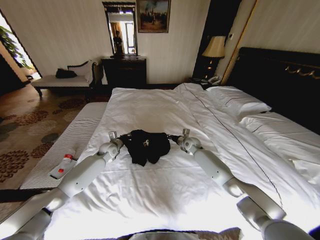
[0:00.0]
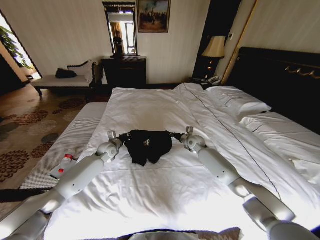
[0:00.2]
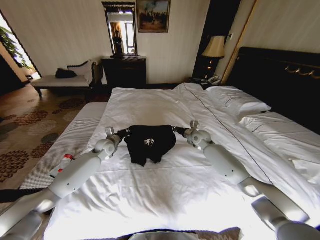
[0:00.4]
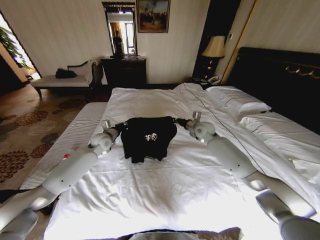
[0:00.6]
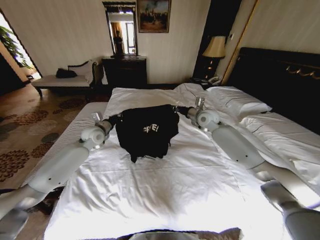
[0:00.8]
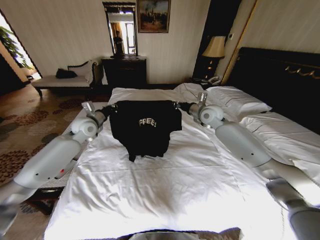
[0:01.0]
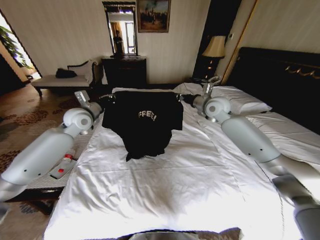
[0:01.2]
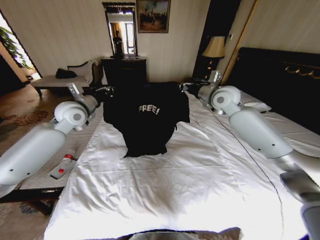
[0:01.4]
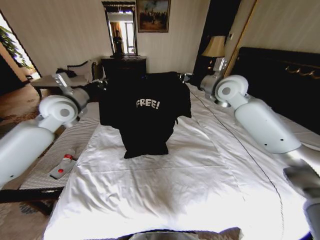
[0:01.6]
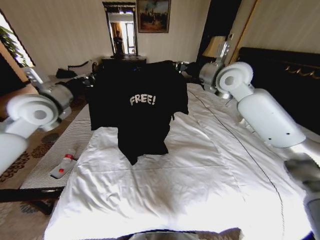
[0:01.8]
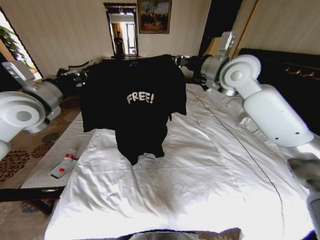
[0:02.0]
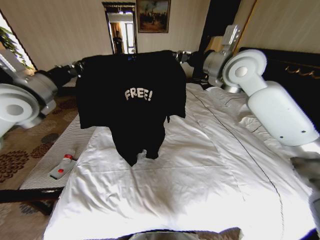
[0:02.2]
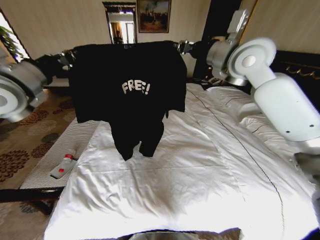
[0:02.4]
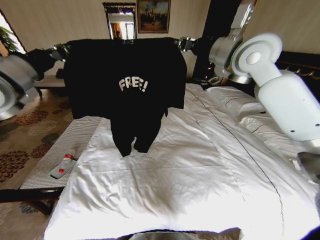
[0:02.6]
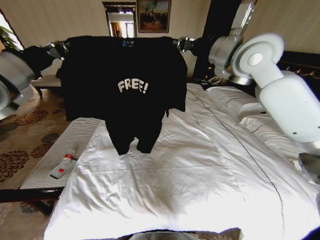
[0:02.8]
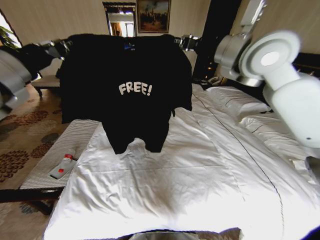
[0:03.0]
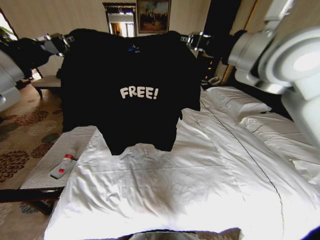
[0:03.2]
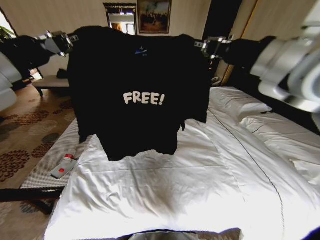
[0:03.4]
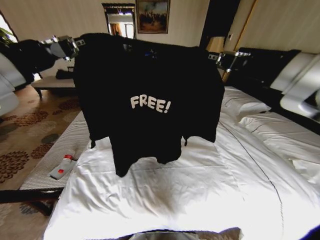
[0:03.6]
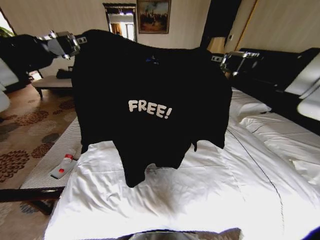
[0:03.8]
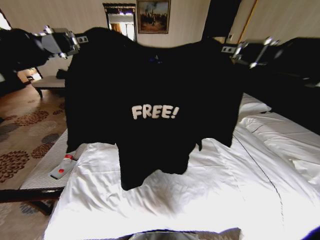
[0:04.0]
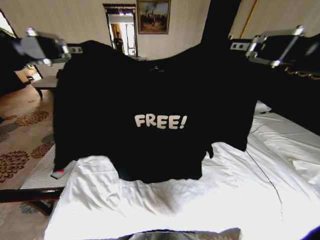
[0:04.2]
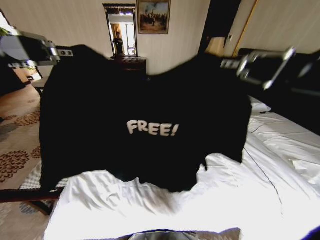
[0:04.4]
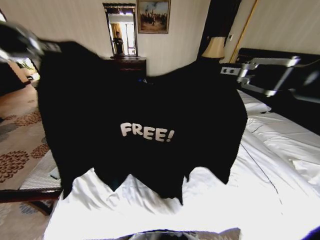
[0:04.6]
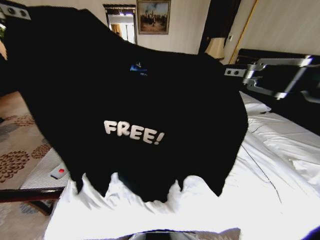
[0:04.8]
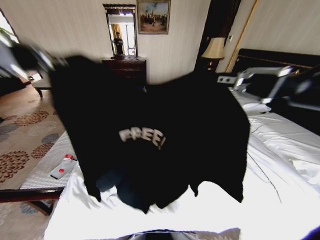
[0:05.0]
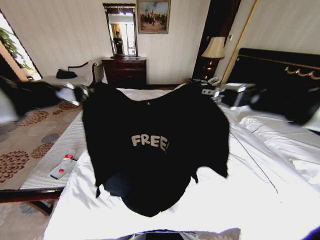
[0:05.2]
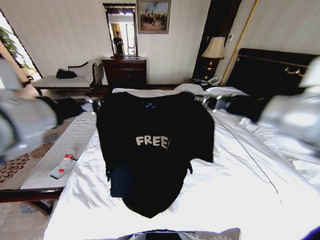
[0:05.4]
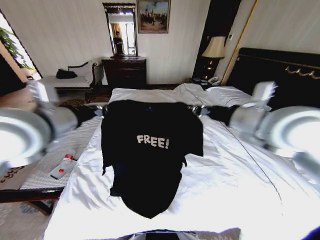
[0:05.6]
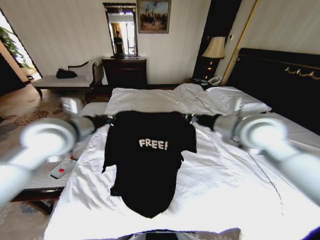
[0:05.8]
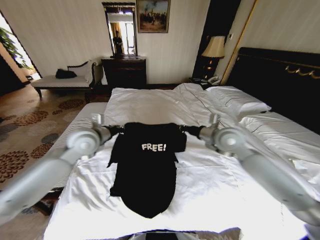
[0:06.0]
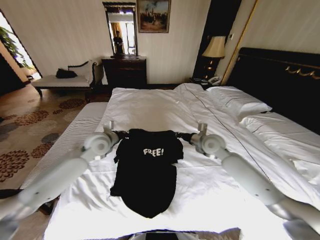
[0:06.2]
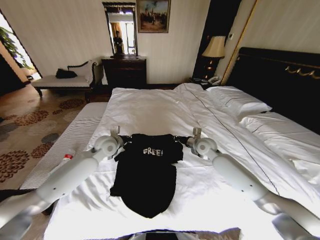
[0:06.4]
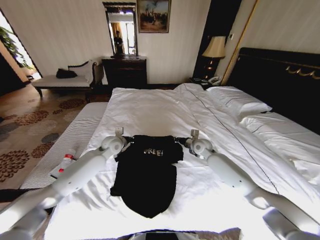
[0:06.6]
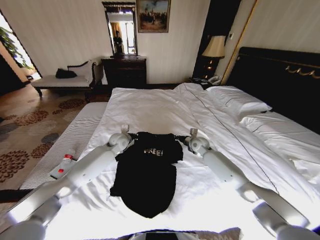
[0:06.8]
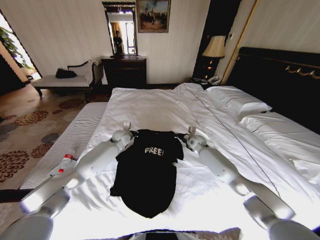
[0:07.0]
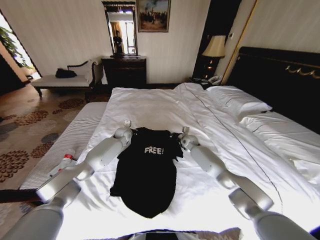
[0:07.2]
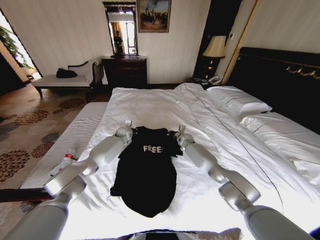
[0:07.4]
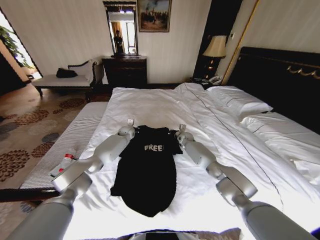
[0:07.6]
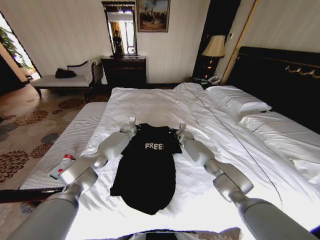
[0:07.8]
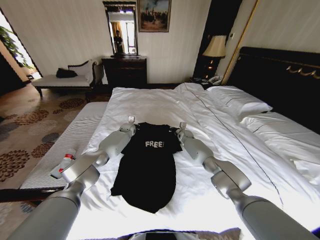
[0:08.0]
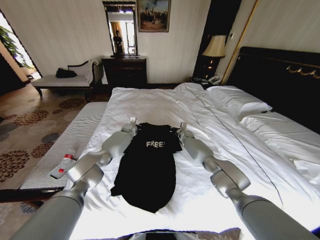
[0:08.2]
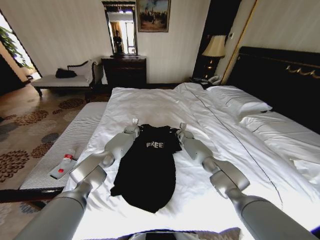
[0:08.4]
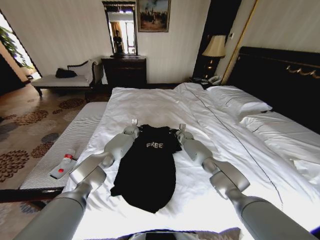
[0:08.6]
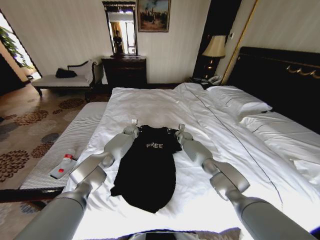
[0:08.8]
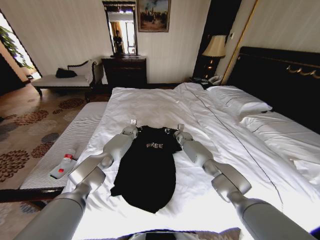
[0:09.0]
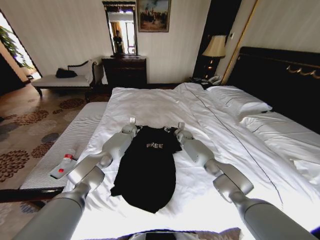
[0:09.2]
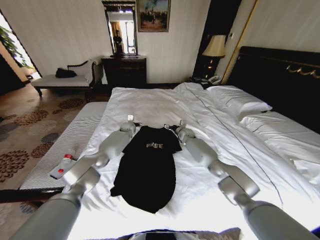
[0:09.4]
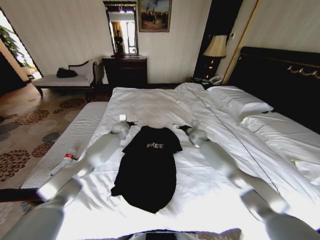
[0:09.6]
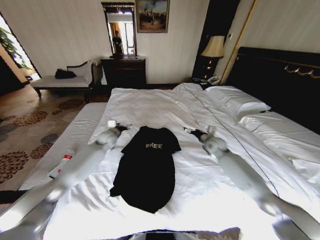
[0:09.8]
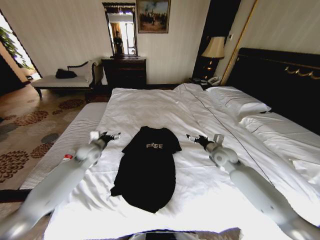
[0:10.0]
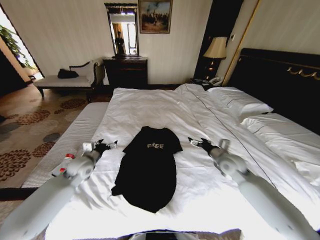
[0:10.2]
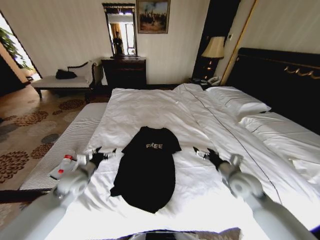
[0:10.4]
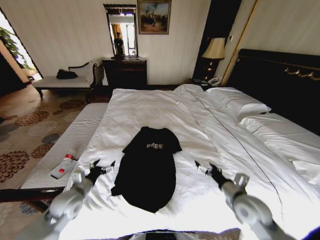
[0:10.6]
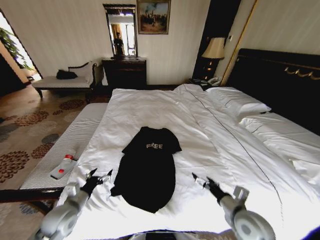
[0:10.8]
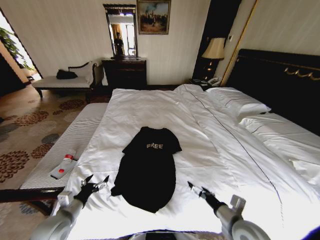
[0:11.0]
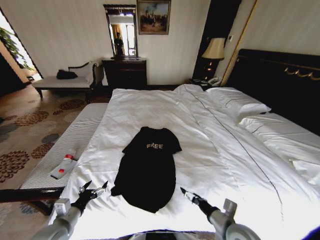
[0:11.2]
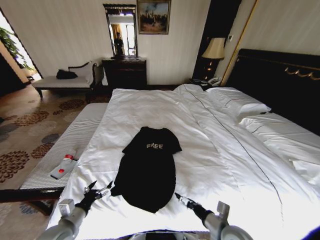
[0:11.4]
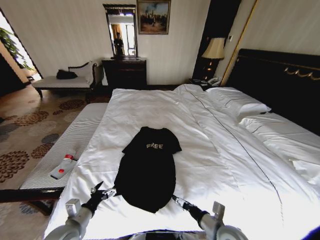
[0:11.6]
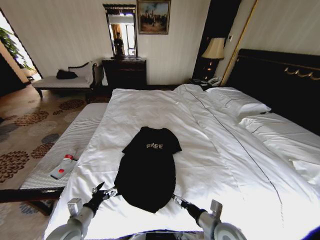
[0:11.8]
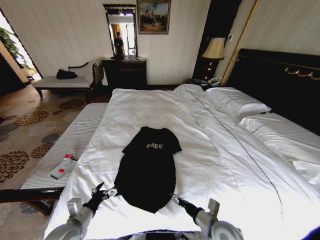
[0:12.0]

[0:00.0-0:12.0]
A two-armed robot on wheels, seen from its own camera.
Task of the whole recording: Fold the clothes on the bed.
0.0 to 1.6 s: Both grippers travel together upward, some 35 cm.
1.6 to 3.0 s: The left gripper shifts approximately 15 cm backward and upward; the right gripper goes about 15 cm upward and backward.
3.0 to 4.4 s: The right gripper heads backward, covering some 30 cm. The left gripper shifts roughly 20 cm backward and upward.
4.4 to 6.0 s: Both grippers move downward and forward, about 35 cm.
6.0 to 7.6 s: Both grippers move forward and downward, about 30 cm.
7.6 to 9.0 s: The right gripper opens its fingers. The left gripper opens its fingers.
9.0 to 10.4 s: The left gripper moves backward and to the left, some 40 cm, and opens up. Meanwhile the right gripper is displaced backward by roughly 35 cm, and opens.
10.4 to 12.0 s: The left gripper goes roughly 15 cm backward. The right gripper goes roughly 20 cm backward, to the left and downward.

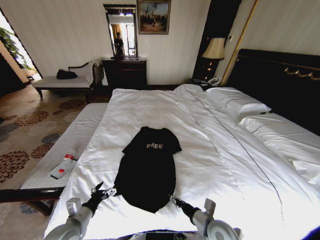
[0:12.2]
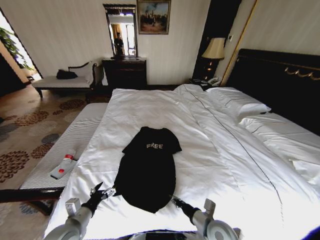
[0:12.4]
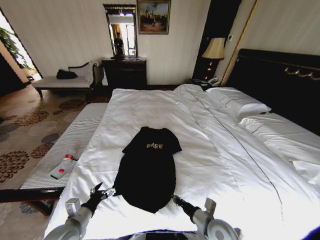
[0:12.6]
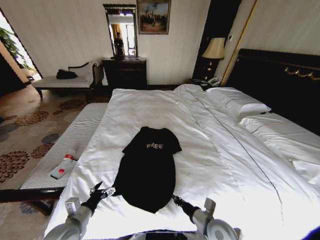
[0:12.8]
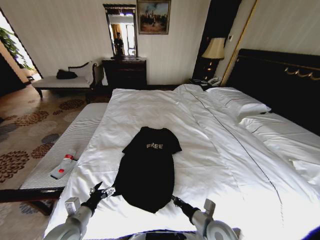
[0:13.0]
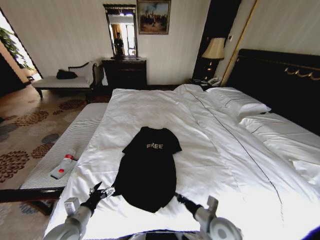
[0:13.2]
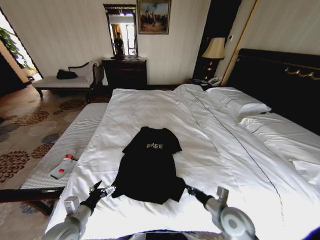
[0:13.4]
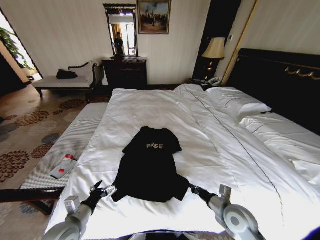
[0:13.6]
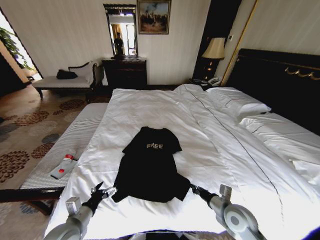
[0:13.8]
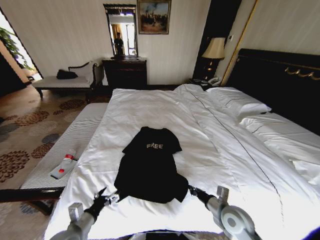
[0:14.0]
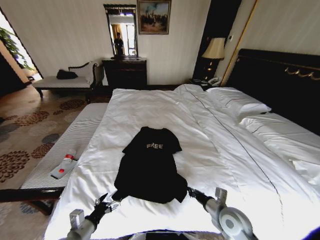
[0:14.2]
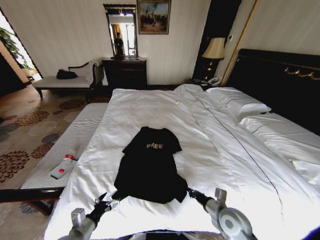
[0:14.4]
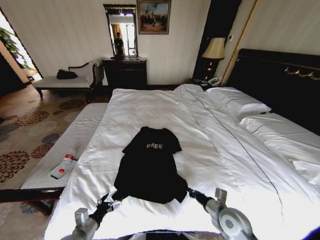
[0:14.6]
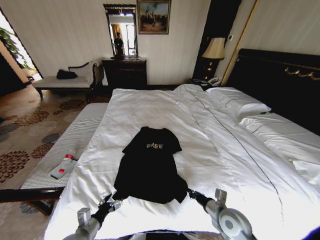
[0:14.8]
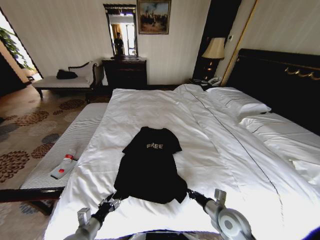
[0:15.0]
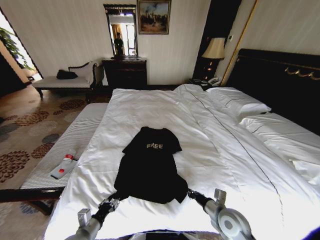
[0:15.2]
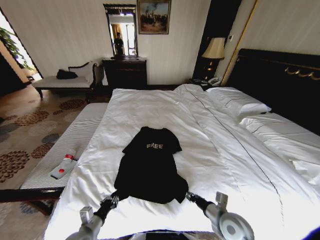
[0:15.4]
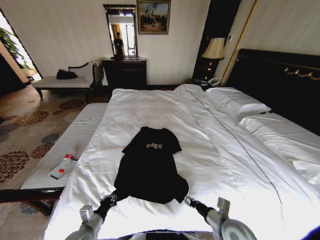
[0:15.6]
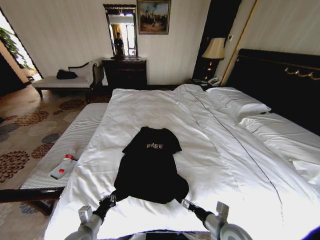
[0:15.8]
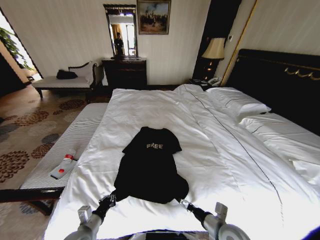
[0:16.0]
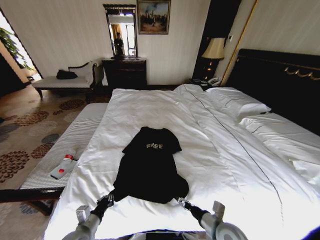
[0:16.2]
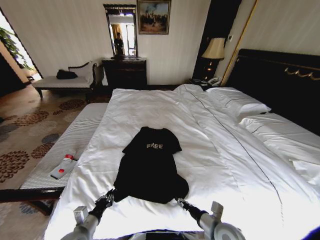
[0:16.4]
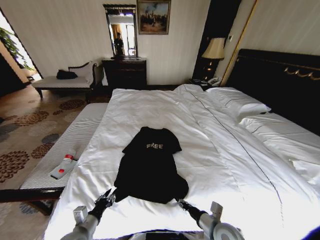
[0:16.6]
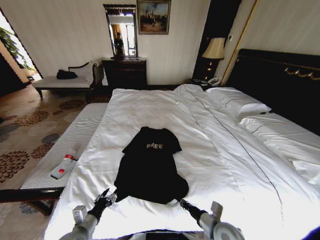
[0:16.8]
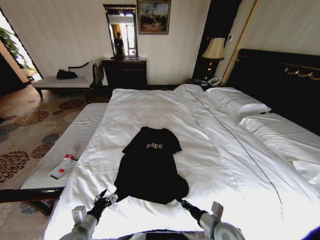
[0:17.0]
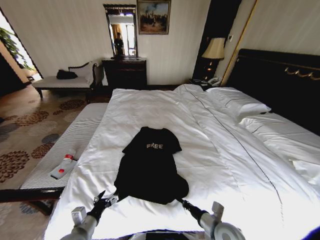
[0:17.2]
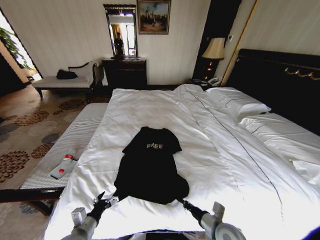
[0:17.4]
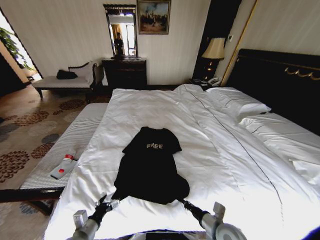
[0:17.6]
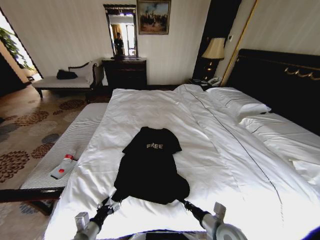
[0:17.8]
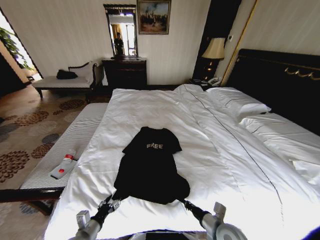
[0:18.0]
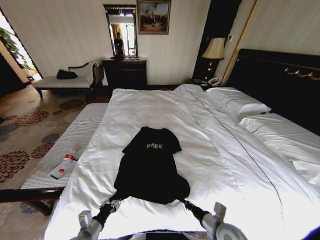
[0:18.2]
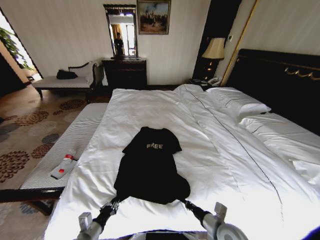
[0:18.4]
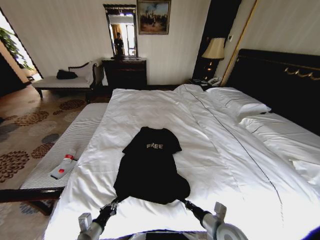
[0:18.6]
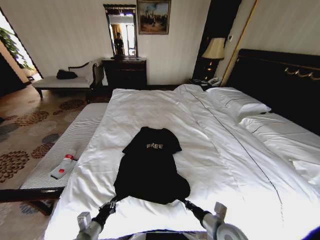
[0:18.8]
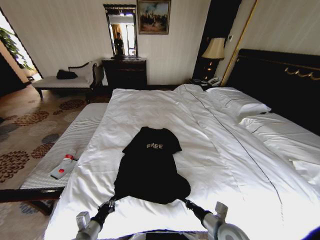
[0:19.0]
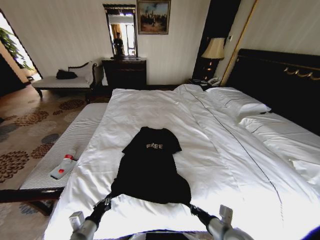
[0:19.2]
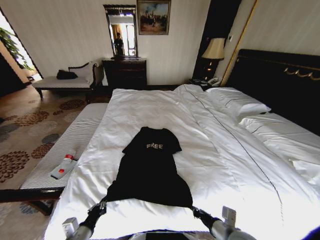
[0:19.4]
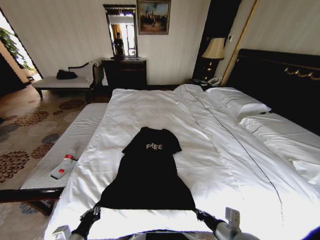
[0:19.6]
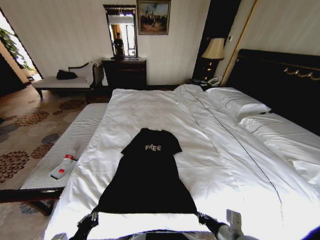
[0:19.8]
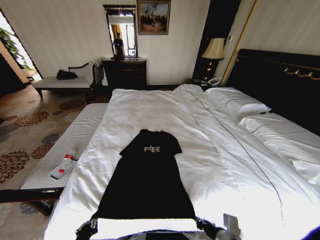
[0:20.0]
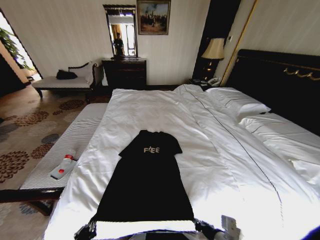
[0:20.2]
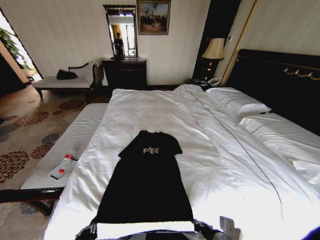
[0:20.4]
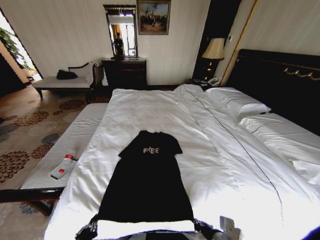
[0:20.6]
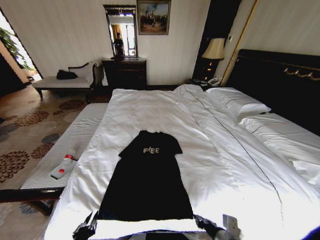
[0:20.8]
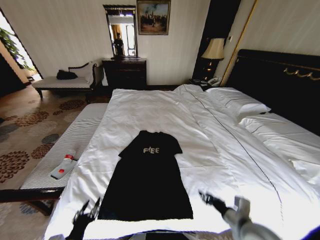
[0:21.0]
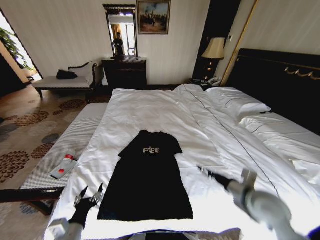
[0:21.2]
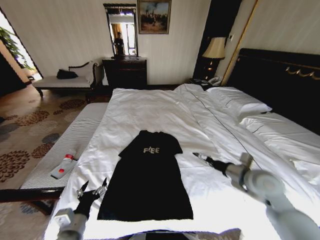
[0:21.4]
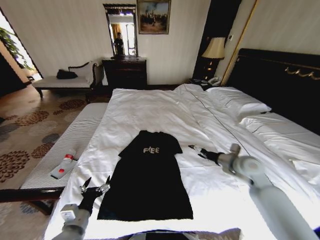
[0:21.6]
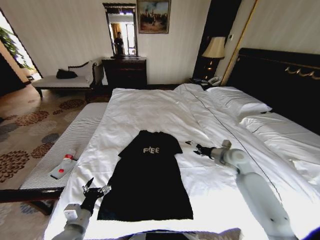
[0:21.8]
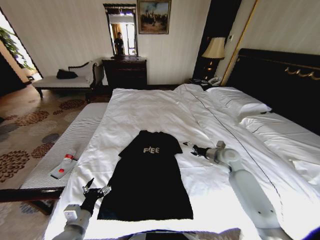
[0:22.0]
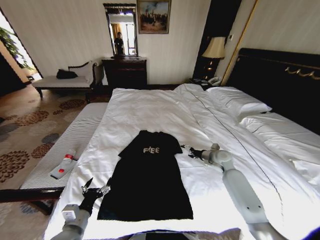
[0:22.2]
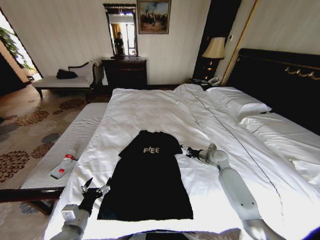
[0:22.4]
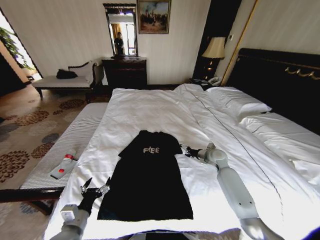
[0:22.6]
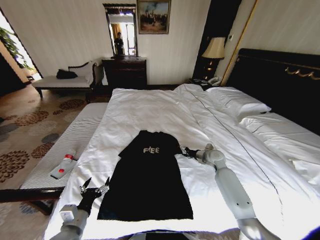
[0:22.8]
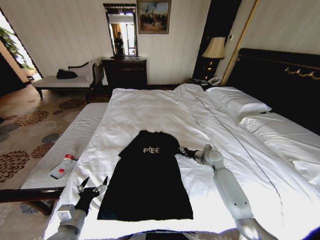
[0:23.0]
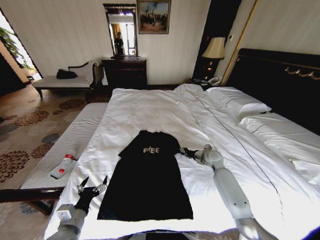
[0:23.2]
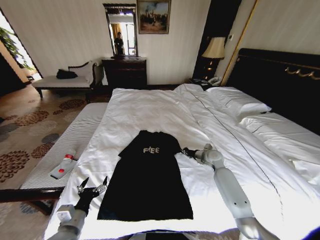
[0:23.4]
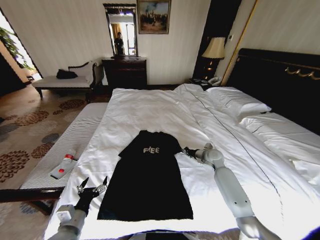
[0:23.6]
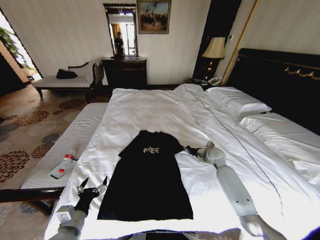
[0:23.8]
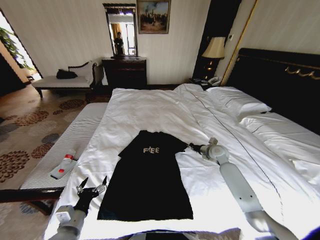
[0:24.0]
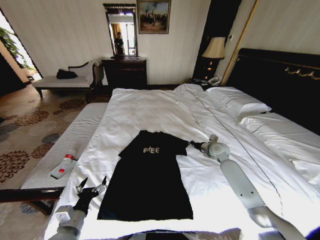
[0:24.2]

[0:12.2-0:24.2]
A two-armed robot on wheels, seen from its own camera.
Task of the whole recording: Fold the clothes on the bed.
12.2 to 13.8 s: The right gripper shifts roughly 5 cm to the right, and closes its fingers.
13.8 to 15.2 s: The left gripper is displaced downward by about 5 cm, and closes.
15.2 to 16.6 s: The right gripper shifts by some 5 cm, and opens its fingers. The left gripper closes and opens again.
16.6 to 18.2 s: The right gripper closes. The left gripper opens, then closes again.
18.2 to 19.8 s: The left gripper moves backward, about 5 cm, and closes up, while the right gripper moves upward, some 5 cm.
19.8 to 21.2 s: The left gripper changes place by approximately 5 cm, and opens; the right gripper is displaced forward, upward and to the right by about 15 cm, and opens up.
21.2 to 22.6 s: The right gripper is displaced forward and downward by some 25 cm, and opens.
22.6 to 24.2 s: The right gripper closes its fingers.
